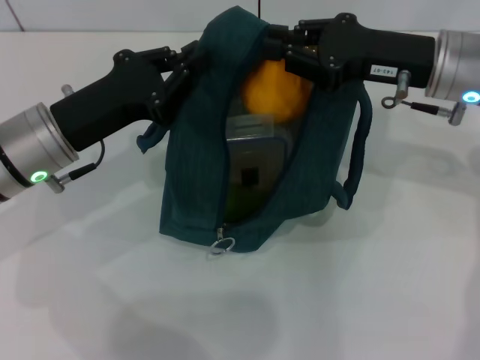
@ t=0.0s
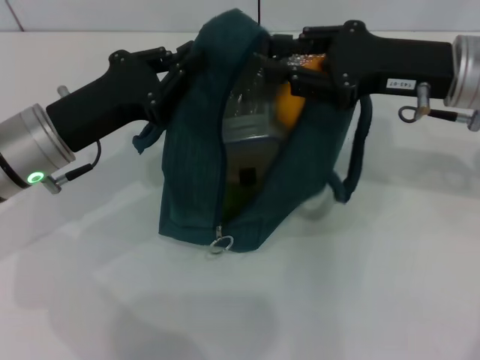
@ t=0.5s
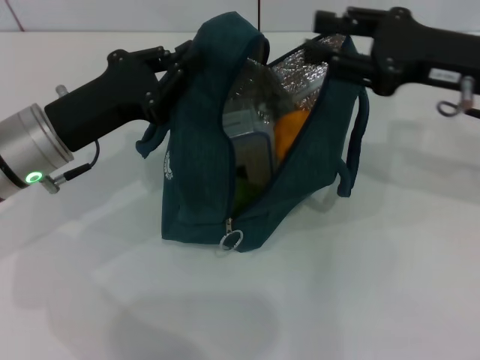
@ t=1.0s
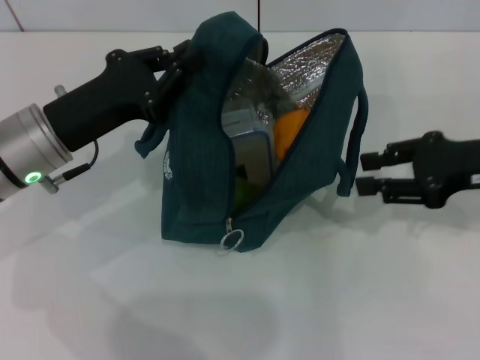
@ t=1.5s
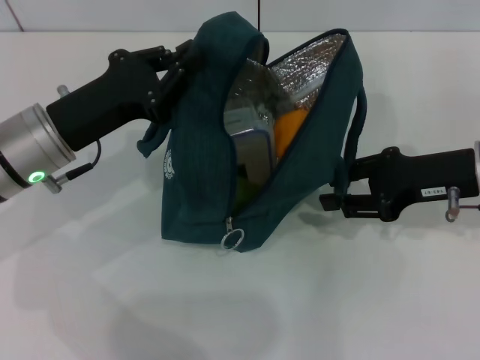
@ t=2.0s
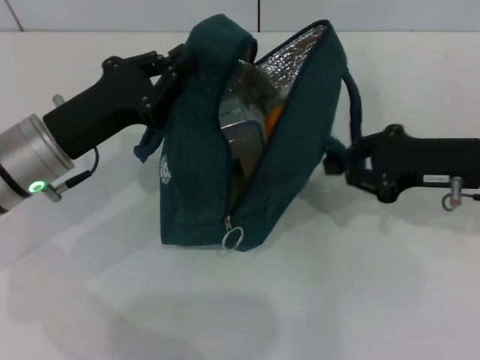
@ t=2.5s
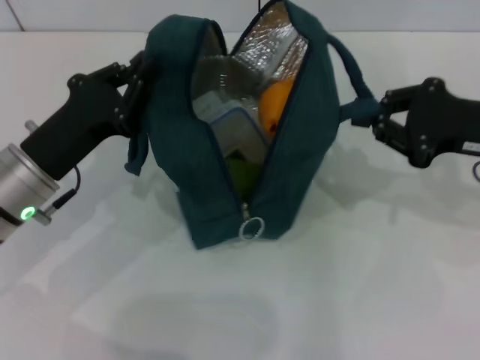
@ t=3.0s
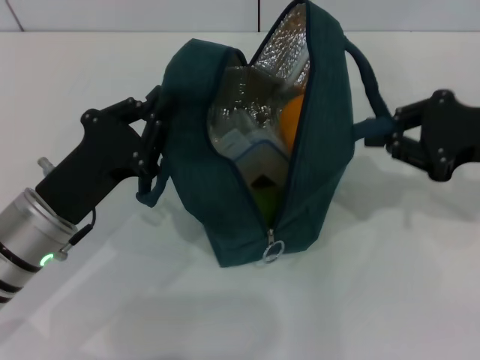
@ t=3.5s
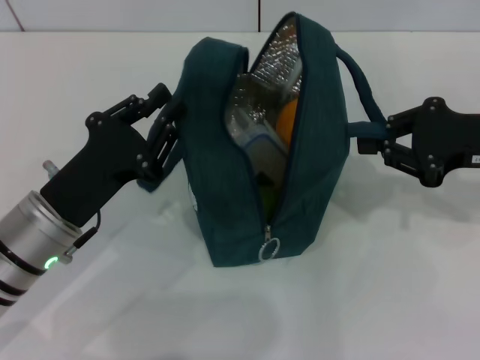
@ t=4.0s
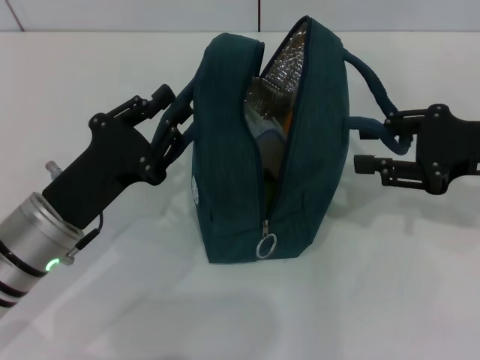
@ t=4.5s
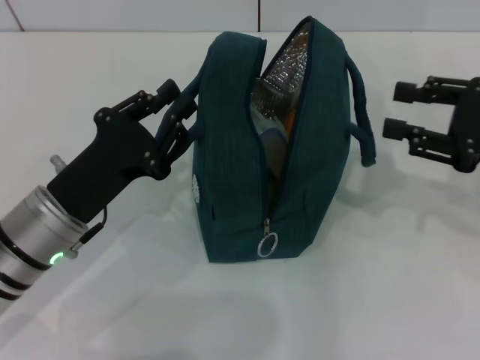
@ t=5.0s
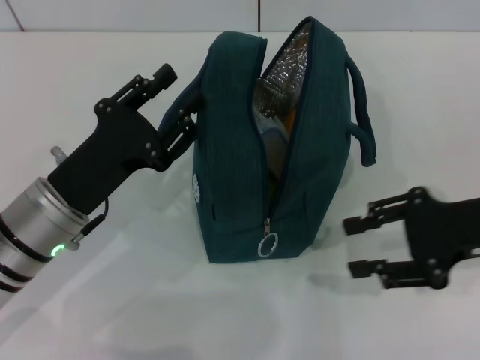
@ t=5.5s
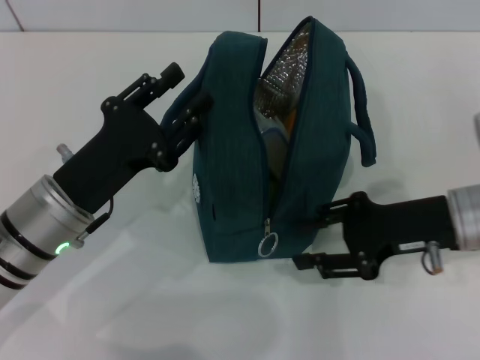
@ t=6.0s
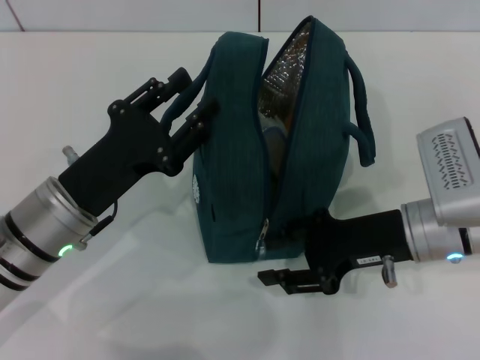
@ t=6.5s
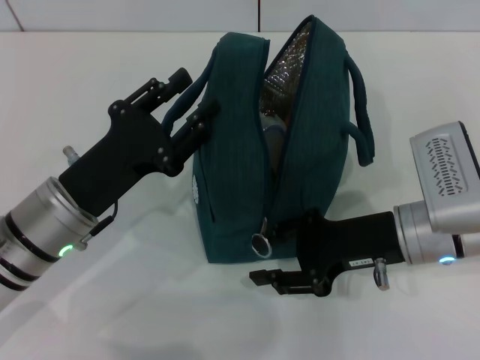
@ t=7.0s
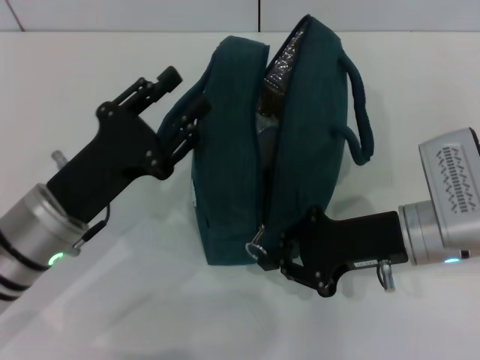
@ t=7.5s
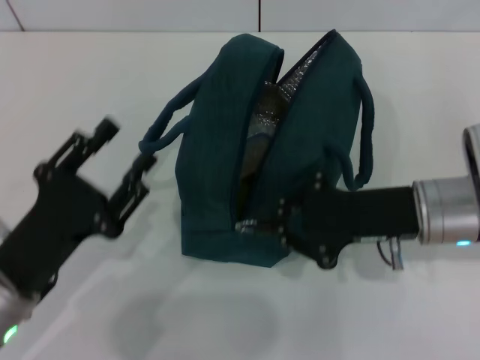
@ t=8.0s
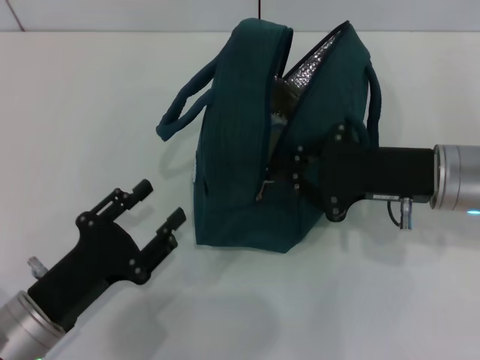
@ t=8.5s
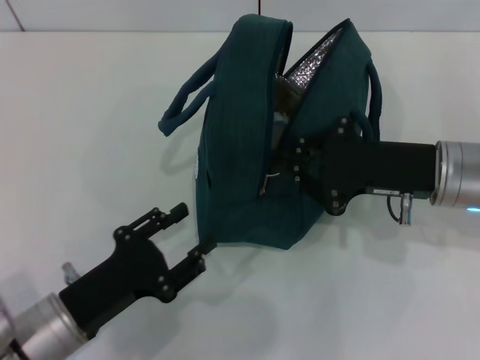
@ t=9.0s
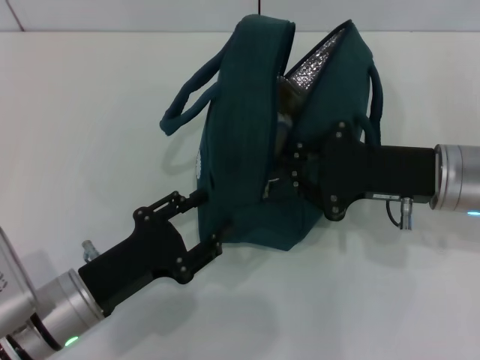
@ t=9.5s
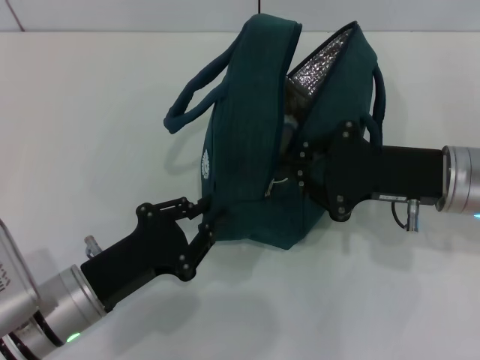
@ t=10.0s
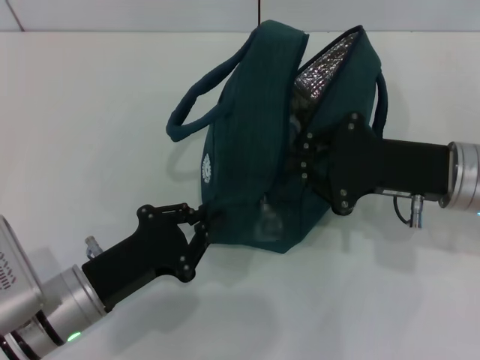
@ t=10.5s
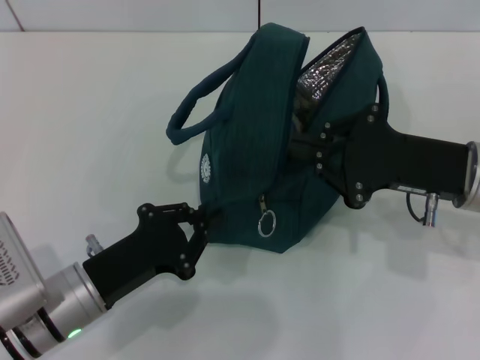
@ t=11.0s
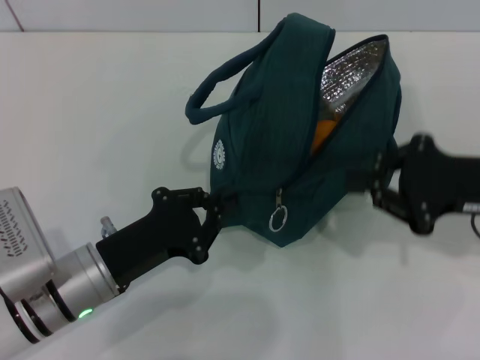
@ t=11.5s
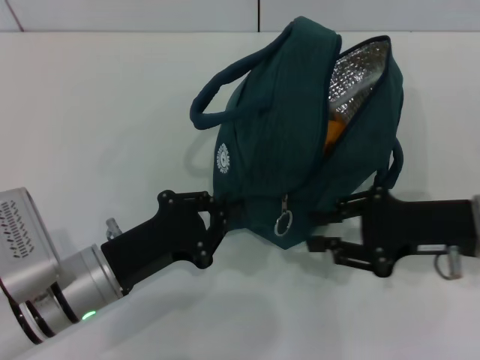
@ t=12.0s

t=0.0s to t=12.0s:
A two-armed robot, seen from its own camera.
Step, t=1.0s to t=4.0s: Hold the lunch bag with your left hand.
t=0.0s to t=2.0s: The right gripper heads downward, covering approximately 5 cm, and opens.
t=2.0s to t=4.0s: The left gripper goes some 10 cm backward and downward.
t=4.0s to t=6.0s: The left gripper opens up; the right gripper is displaced downward and to the left by about 10 cm, and opens up.
t=6.0s to t=8.0s: The left gripper is displaced backward by roughly 5 cm; the right gripper closes.
t=8.0s to t=10.0s: The left gripper ends up approximately 5 cm from where it was.
t=10.0s to t=12.0s: The left gripper closes its fingers.

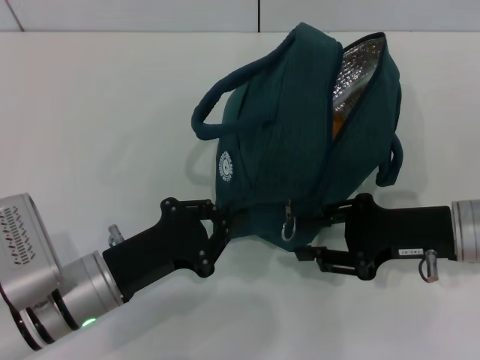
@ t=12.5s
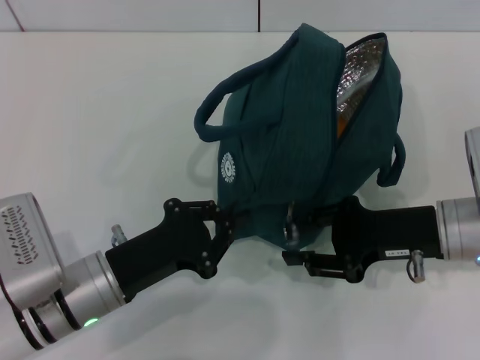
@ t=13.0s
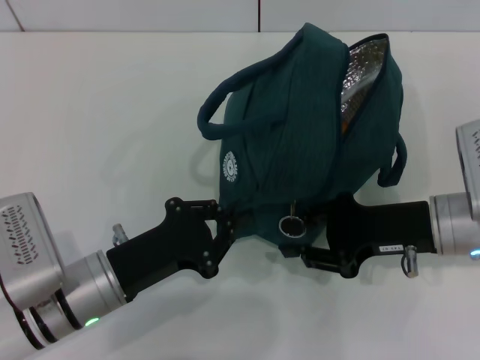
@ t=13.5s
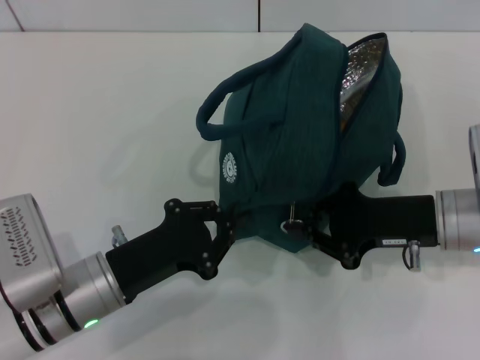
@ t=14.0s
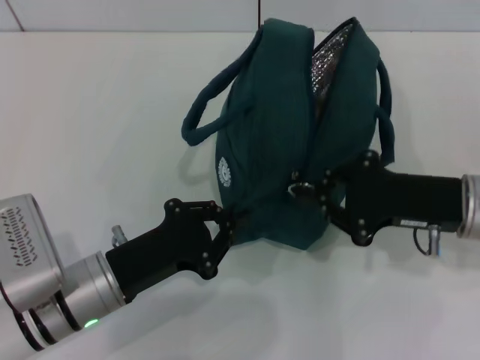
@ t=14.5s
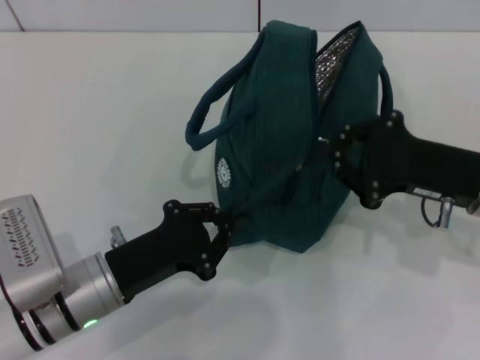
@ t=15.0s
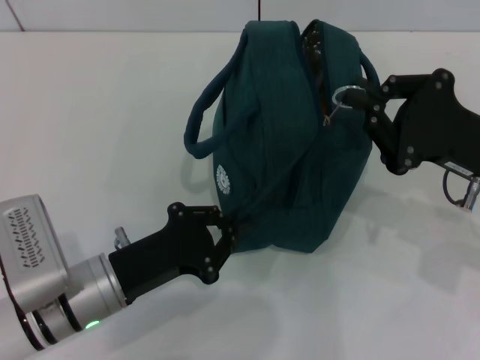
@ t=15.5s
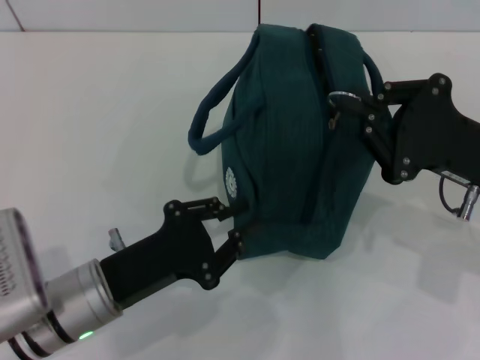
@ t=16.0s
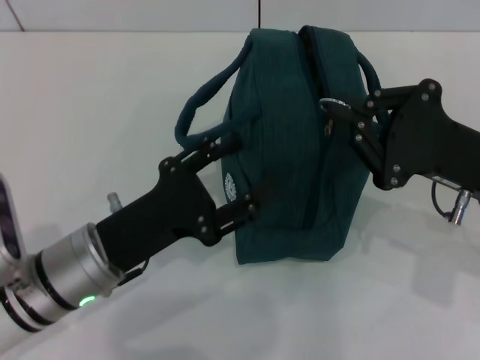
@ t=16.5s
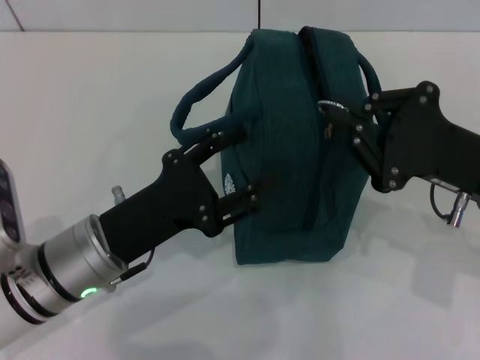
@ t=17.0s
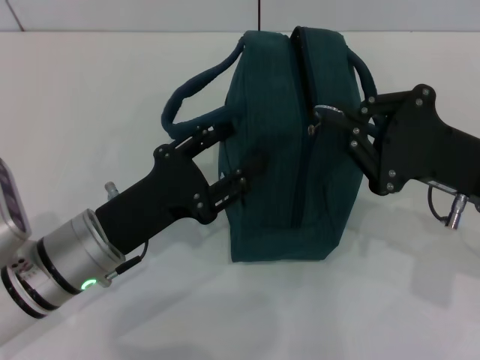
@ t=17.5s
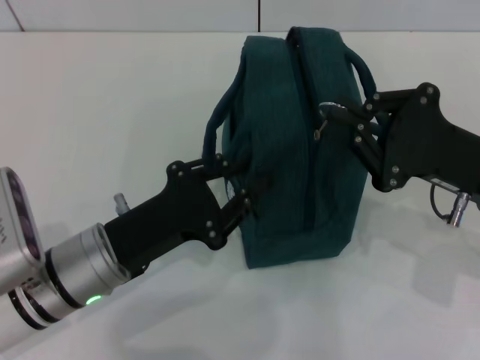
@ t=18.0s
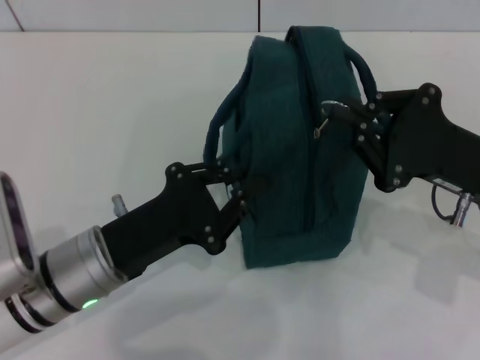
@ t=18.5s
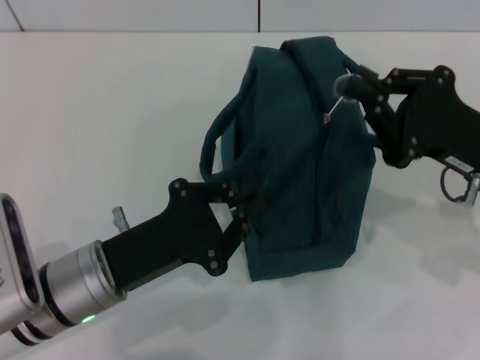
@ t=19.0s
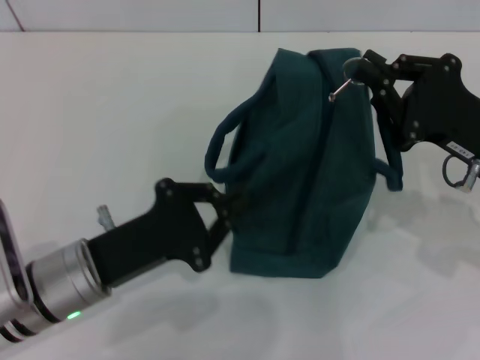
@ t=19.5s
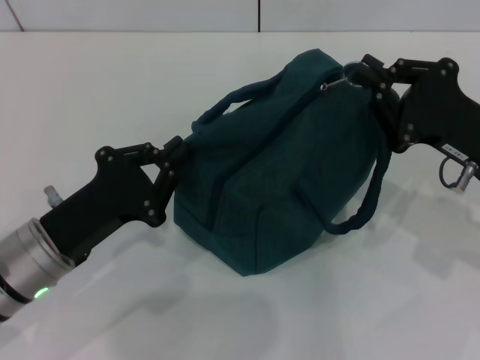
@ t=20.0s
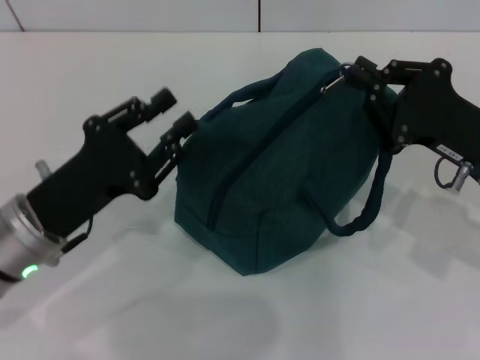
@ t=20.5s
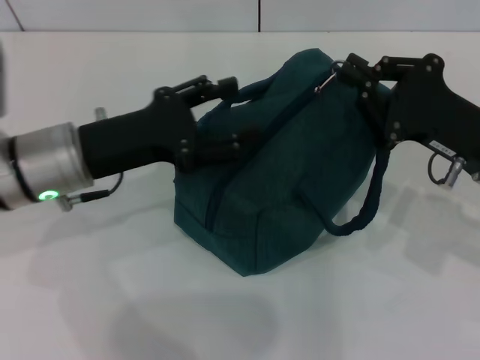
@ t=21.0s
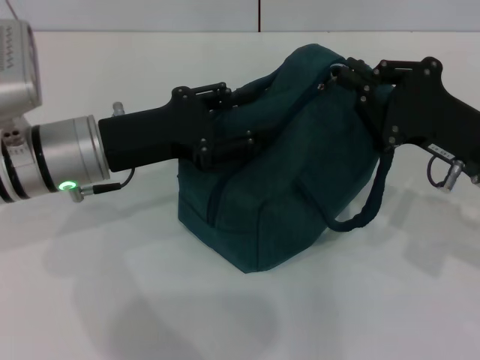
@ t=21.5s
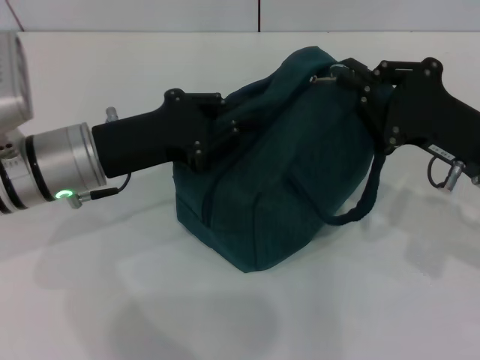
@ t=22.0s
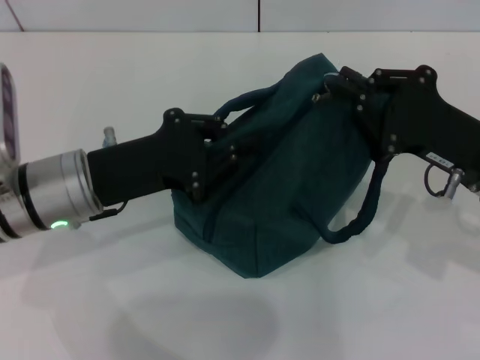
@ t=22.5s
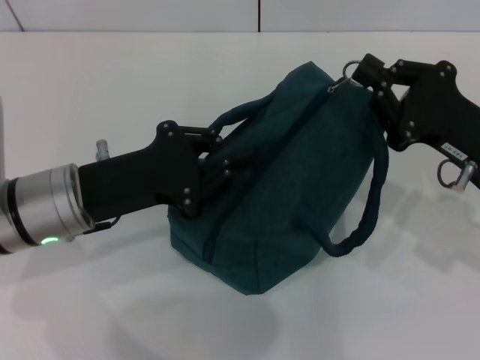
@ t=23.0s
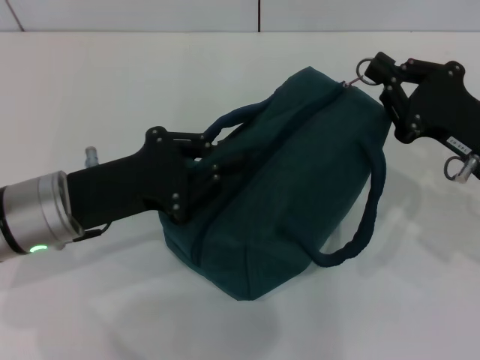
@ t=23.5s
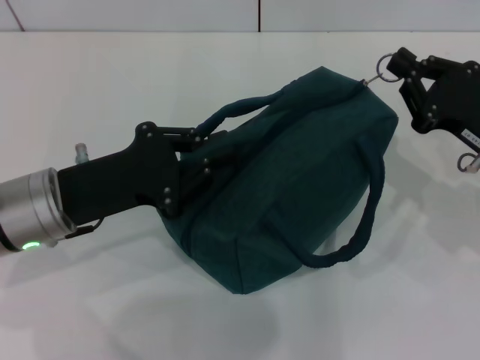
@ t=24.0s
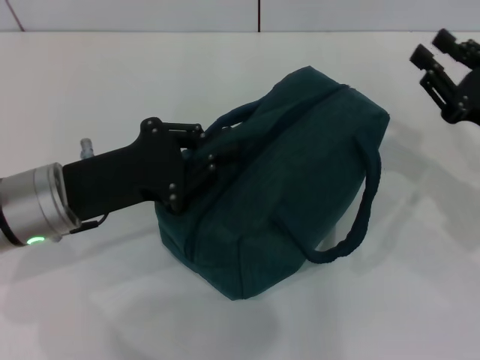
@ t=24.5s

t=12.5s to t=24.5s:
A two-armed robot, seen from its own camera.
t=12.5s to t=14.5s: The right gripper closes.
t=14.5s to t=16.5s: The left gripper opens up.
t=16.5s to t=18.5s: The left gripper closes its fingers.
t=18.5s to t=20.5s: The left gripper ends up approximately 5 cm from where it was.
t=20.5s to t=22.5s: The left gripper opens, then closes again.
t=22.5s to t=24.5s: The right gripper travels to the right by some 5 cm.

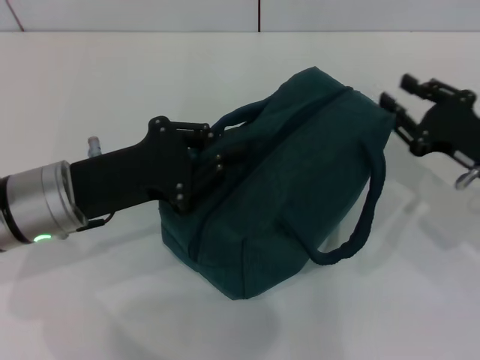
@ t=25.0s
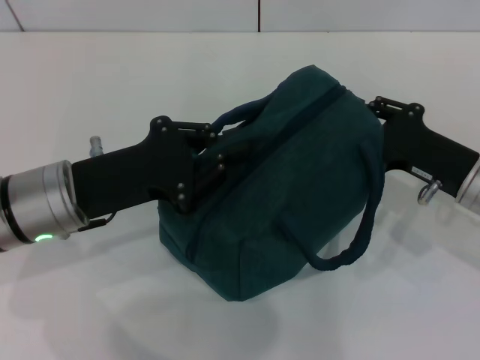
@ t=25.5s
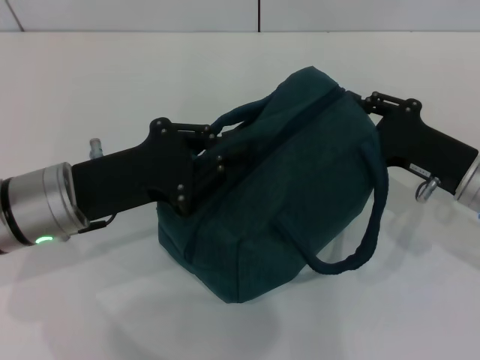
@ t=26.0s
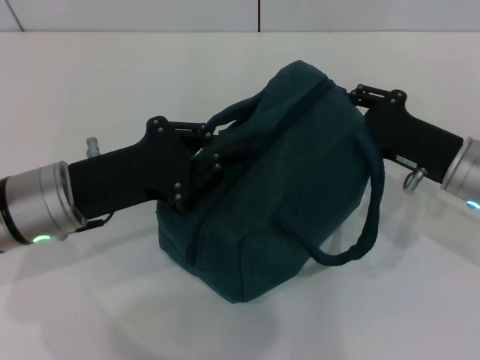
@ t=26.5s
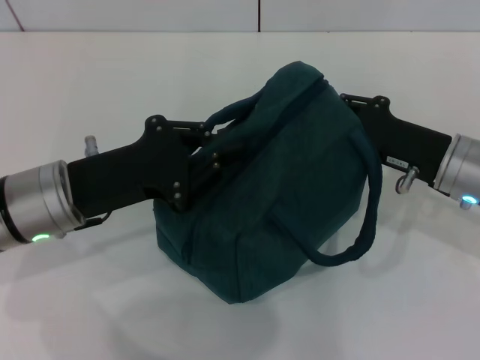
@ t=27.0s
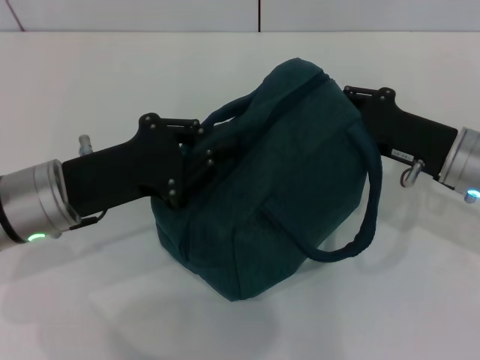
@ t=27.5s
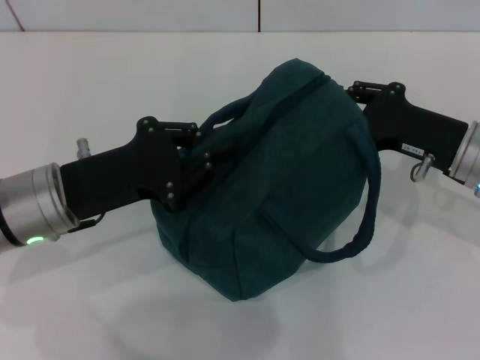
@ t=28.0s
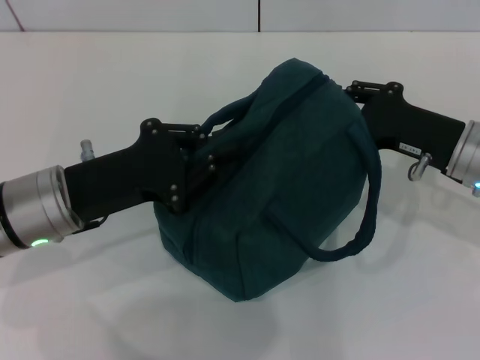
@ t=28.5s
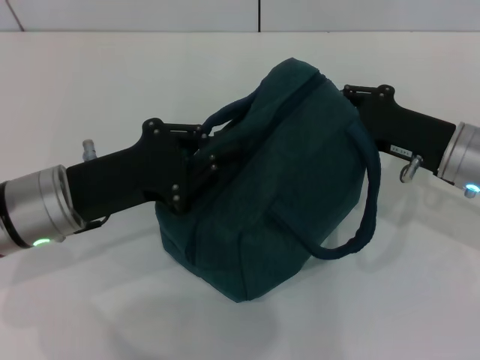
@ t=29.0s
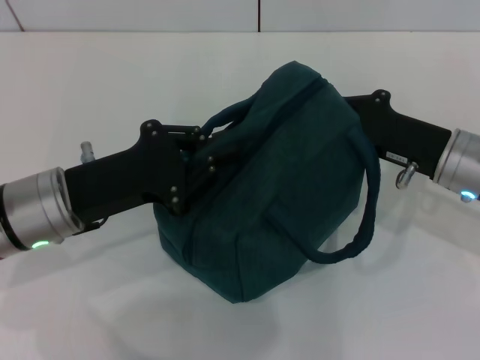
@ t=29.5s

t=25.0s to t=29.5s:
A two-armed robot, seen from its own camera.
t=25.0s to t=27.0s: The right gripper shifts roughly 5 cm to the left.
t=27.0s to t=29.5s: The grippers make only small movements.
